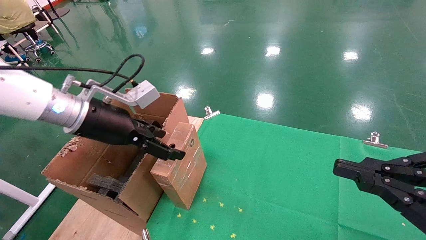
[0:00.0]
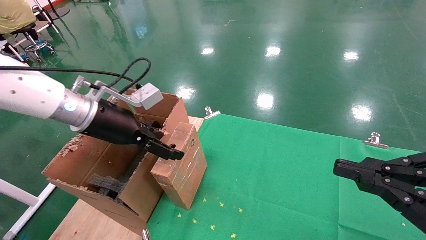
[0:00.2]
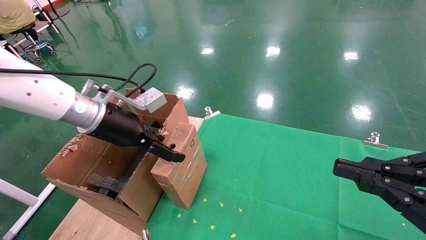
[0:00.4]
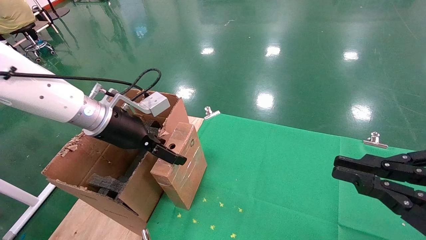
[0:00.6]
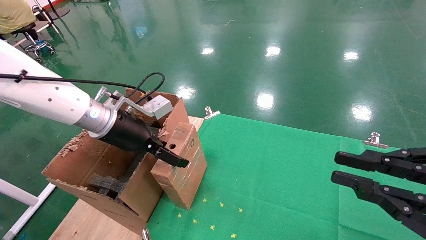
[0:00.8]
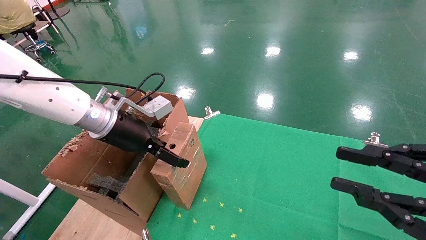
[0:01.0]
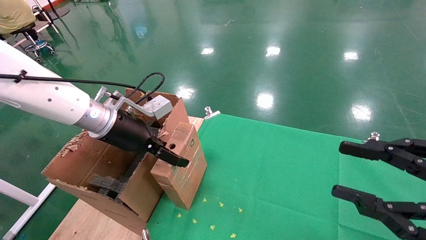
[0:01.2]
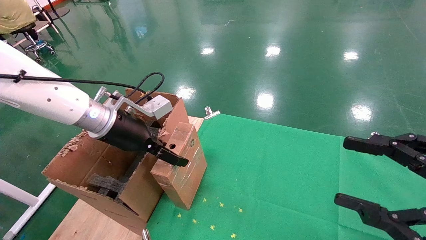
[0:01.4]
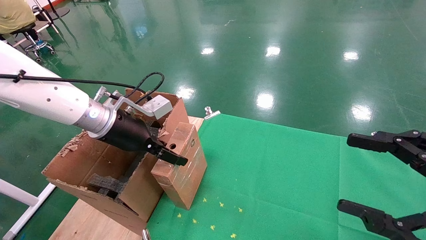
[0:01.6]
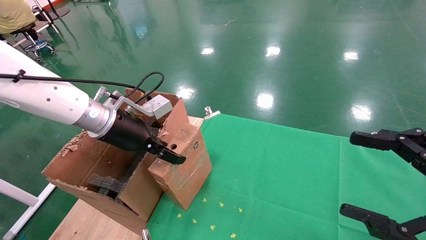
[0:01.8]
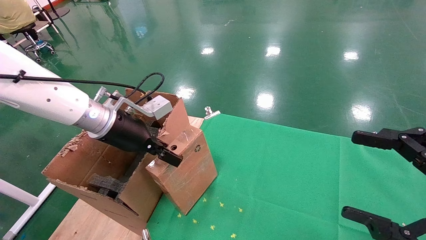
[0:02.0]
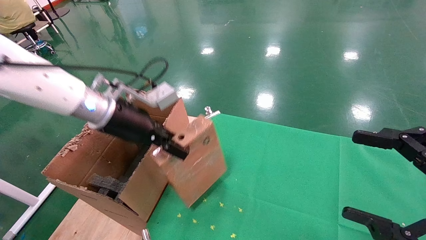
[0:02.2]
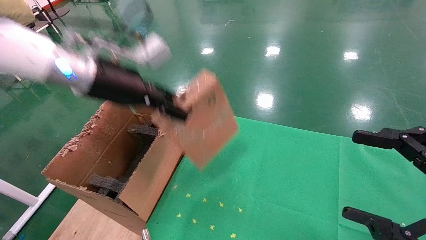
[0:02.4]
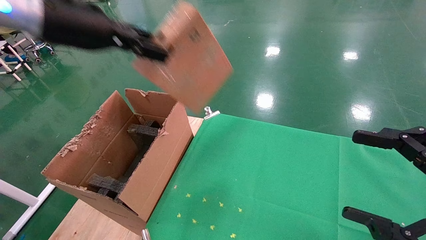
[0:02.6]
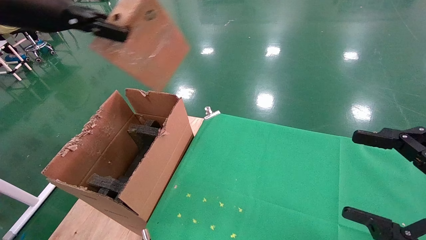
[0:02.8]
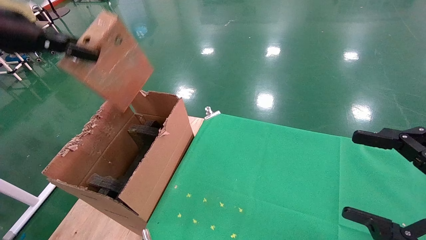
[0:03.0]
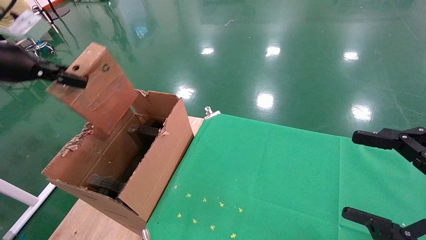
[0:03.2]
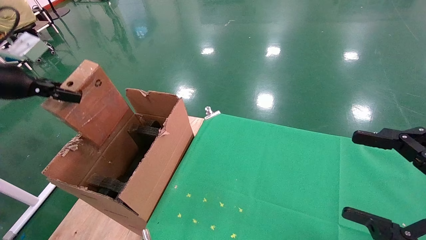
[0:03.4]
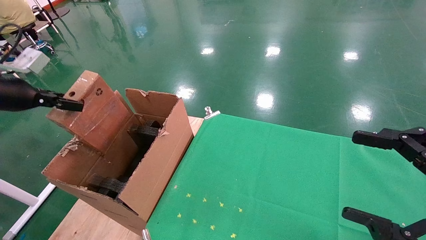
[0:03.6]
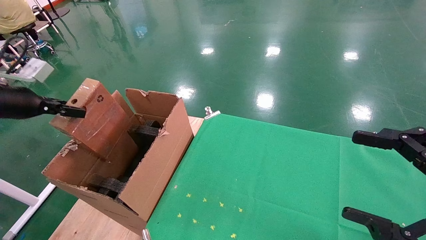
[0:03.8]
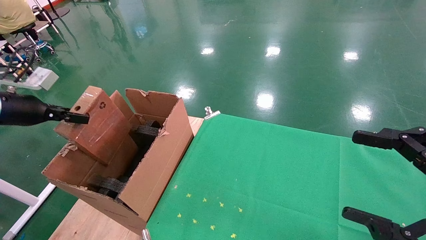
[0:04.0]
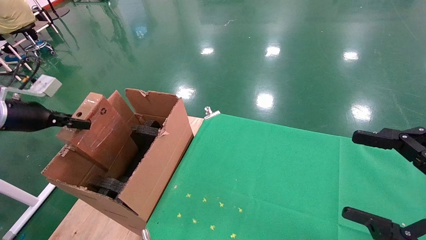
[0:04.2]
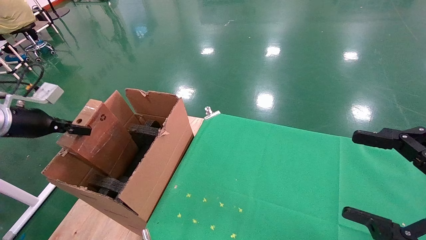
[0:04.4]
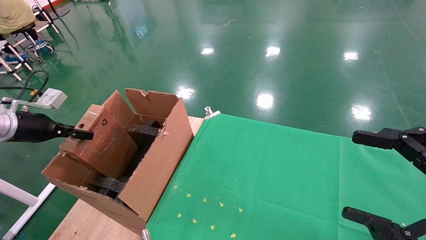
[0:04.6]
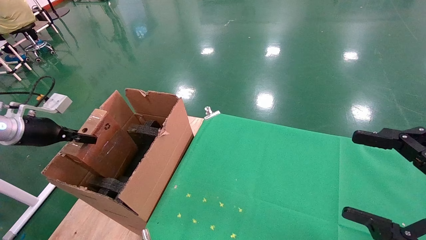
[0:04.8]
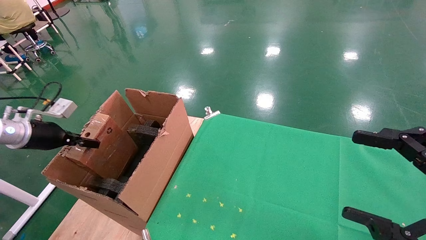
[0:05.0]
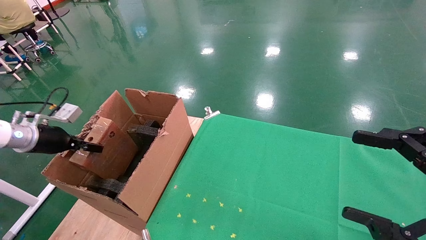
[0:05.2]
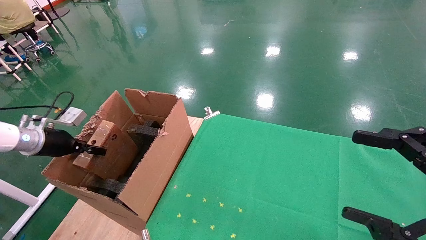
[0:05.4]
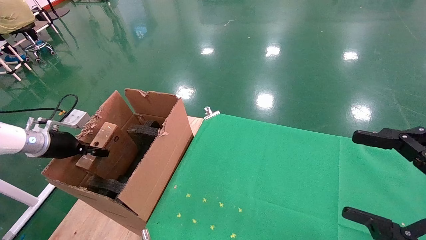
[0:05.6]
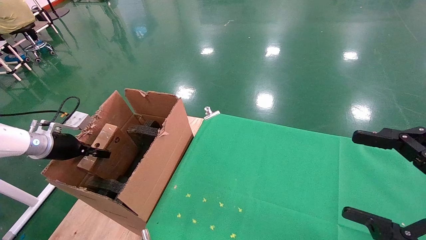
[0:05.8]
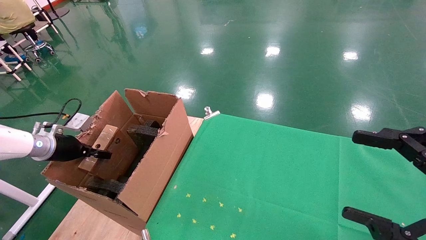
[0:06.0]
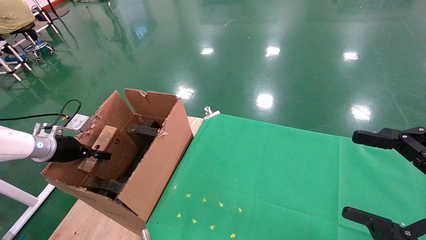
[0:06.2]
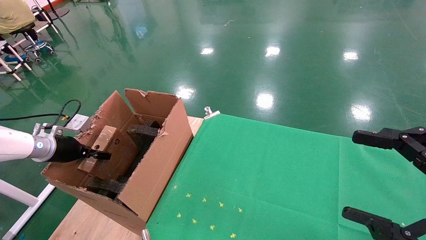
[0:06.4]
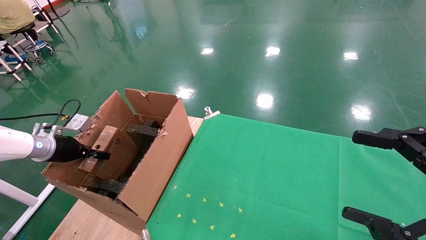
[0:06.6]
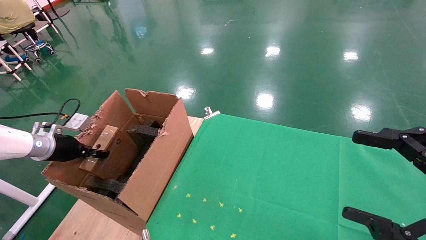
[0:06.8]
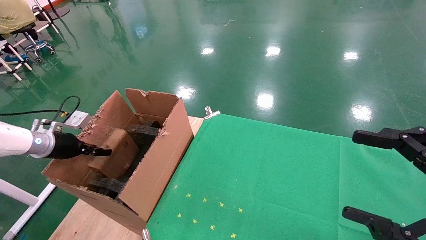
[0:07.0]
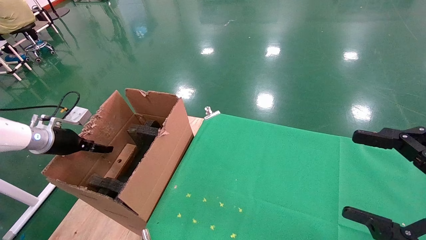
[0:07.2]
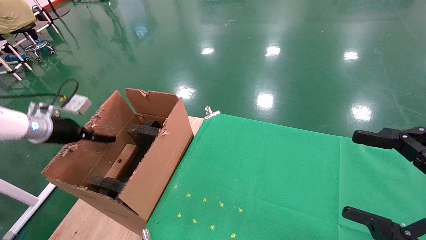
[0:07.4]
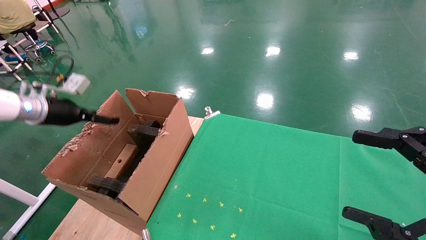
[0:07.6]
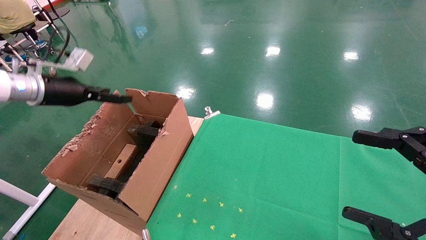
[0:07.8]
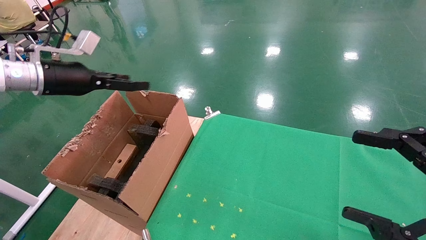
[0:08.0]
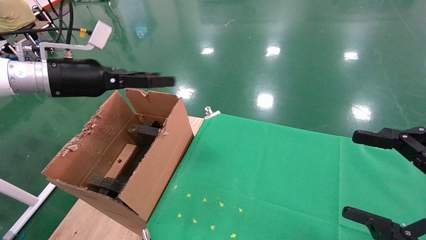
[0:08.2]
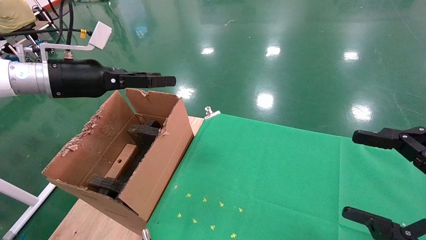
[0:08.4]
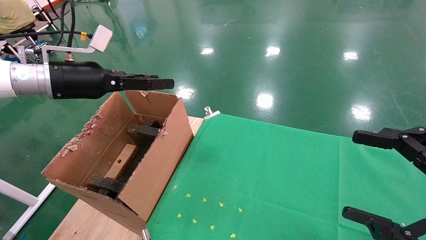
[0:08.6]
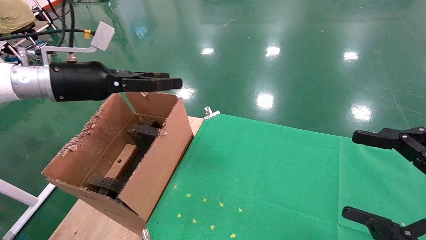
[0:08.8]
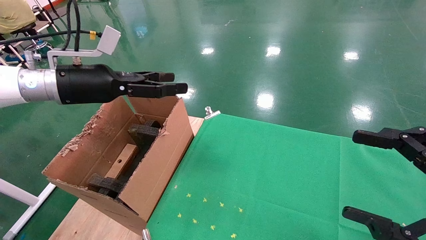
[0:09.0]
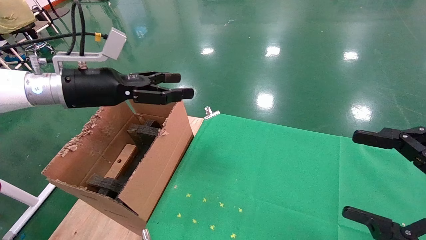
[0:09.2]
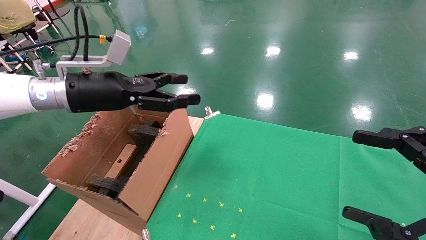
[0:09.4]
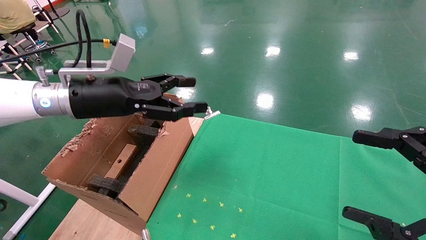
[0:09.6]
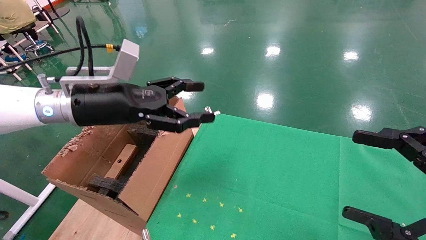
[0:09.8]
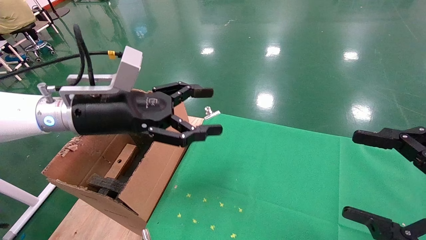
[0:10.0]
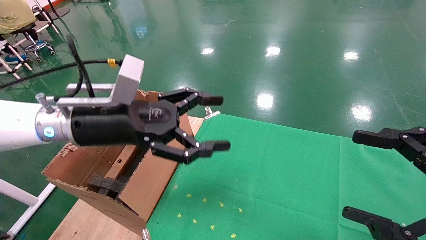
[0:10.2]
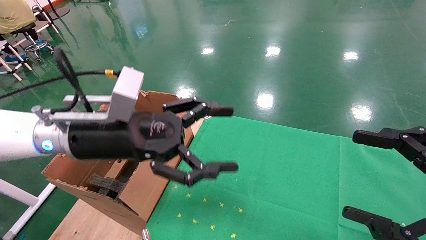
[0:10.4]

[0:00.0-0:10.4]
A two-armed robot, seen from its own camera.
Task of the whole recording: using a robotic arm to pick up a cardboard box and palace it the carton.
Step, 0:00.0 to 0:02.0: Pick up the mouse and the power cord paper box.
Step, 0:02.2 to 0:07.8: Place the mouse and the power cord paper box into the container.
0:00.0 to 0:01.4: The right gripper opens.
0:01.4 to 0:03.0: The right gripper opens up. Meanwhile the left gripper goes about 25 cm upward, to the left and backward, and closes up.
0:03.0 to 0:04.4: The left gripper heads downward and to the left, covering some 20 cm.
0:04.4 to 0:06.0: The left gripper heads downward and forward, covering roughly 10 cm.
0:06.0 to 0:07.4: The left gripper travels upward by about 5 cm, and opens up.
0:07.4 to 0:09.0: The left gripper heads to the right and upward, covering about 20 cm.
0:09.0 to 0:10.4: The left gripper heads to the right, backward and downward, covering approximately 15 cm.

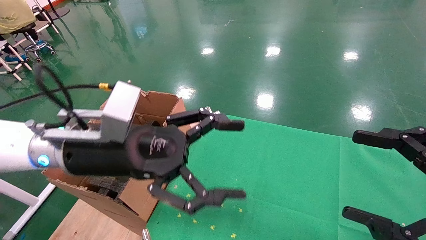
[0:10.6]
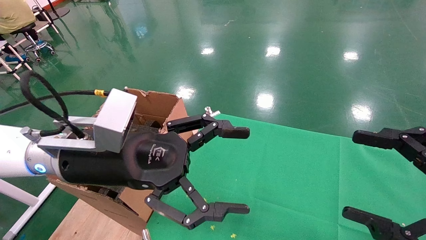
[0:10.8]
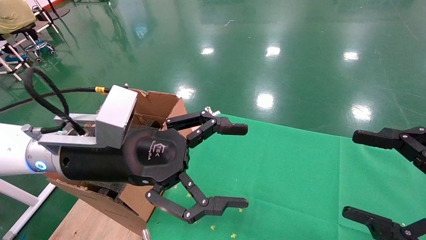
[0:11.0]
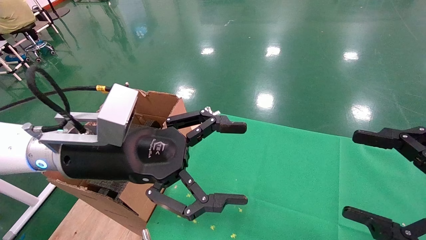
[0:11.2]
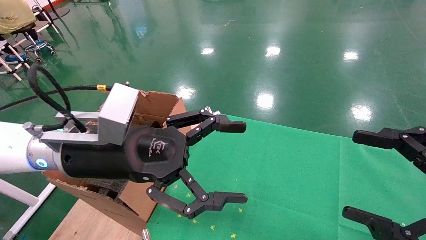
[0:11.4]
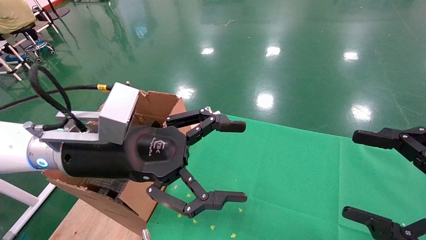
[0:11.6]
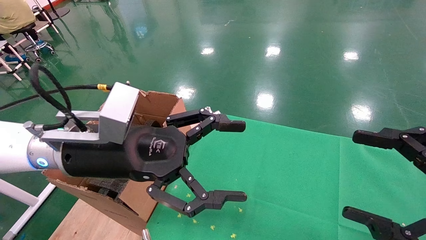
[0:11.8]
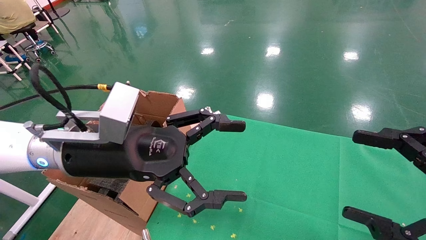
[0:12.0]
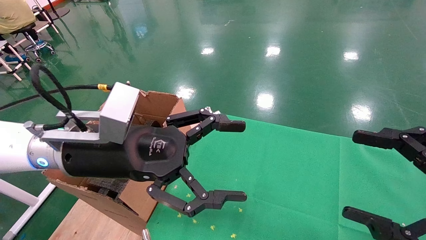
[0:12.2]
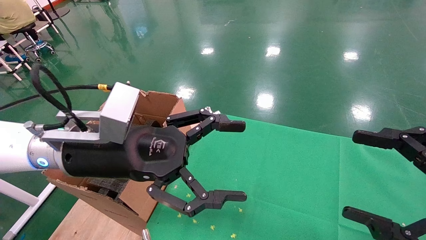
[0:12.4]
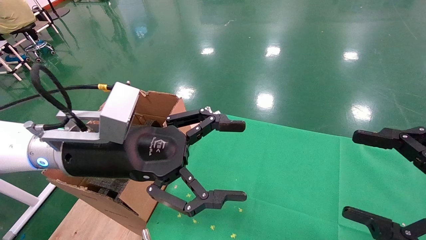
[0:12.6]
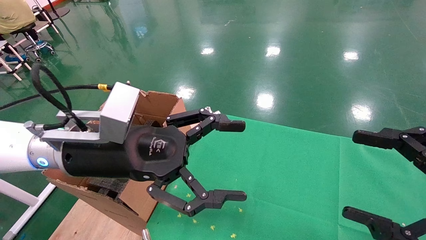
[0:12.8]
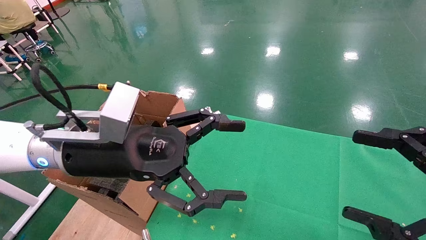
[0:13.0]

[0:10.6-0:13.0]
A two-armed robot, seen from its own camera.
Task of the whole recording: using a robotic arm to pick up a cardboard box and palace it the carton.
0:10.6 to 0:13.0: The two grippers keep their place.
